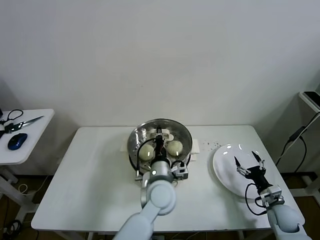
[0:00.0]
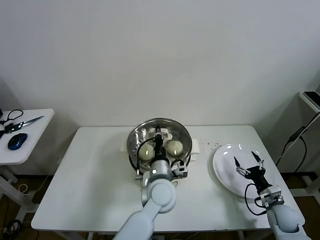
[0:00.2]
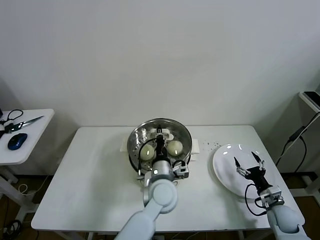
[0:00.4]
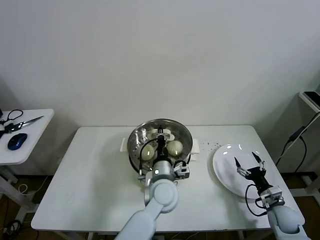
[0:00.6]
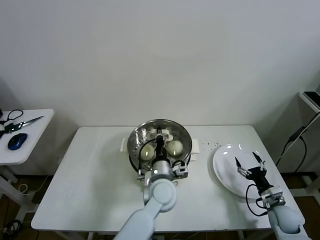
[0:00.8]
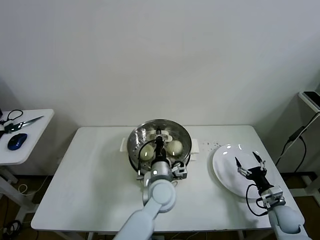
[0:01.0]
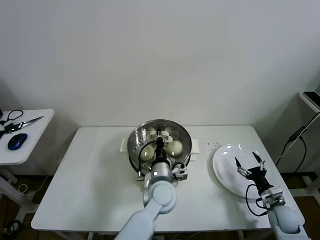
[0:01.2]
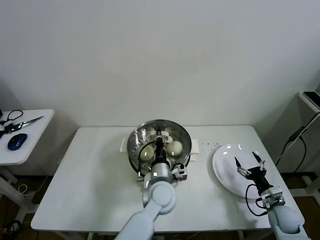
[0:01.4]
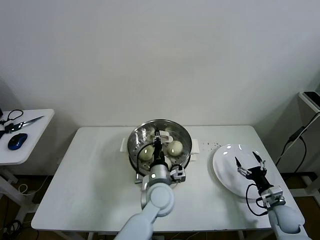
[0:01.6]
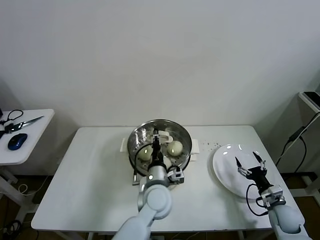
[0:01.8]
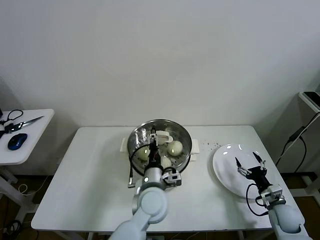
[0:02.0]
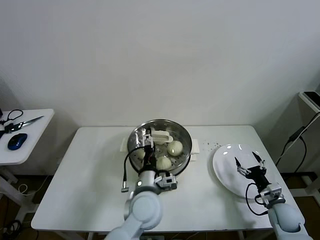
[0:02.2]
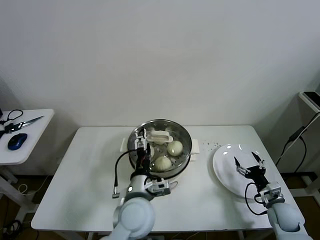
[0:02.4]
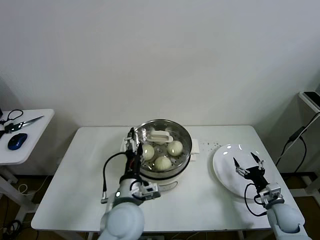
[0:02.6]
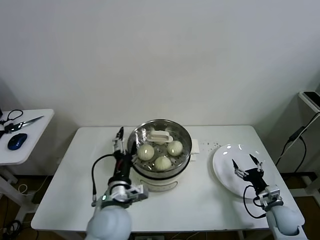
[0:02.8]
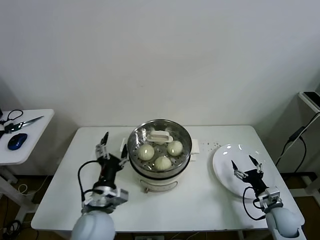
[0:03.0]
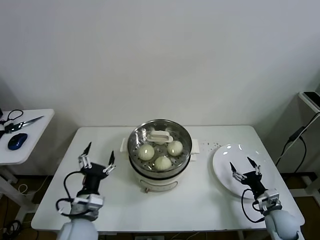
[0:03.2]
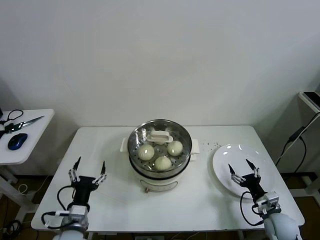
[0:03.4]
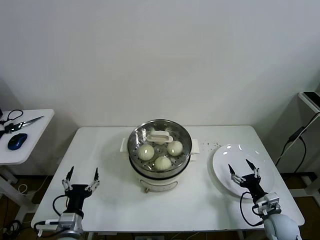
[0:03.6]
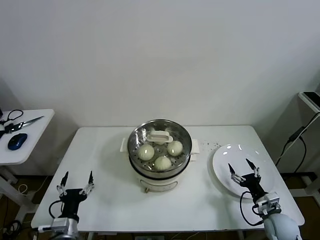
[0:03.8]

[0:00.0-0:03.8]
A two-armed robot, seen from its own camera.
Task of the whole recording: take steamed baozi put them in steamer then cover it.
0:00.0 to 0:01.2: The grippers make only small movements.
0:01.2 to 0:02.6: The left gripper is displaced to the left, backward and upward by roughly 15 cm, and opens.
0:02.6 to 0:03.8: The left gripper heads to the left and downward, covering approximately 25 cm.
